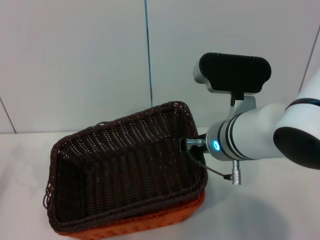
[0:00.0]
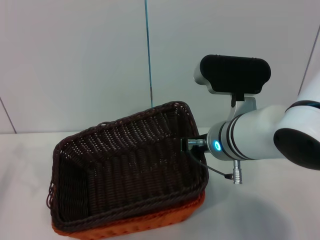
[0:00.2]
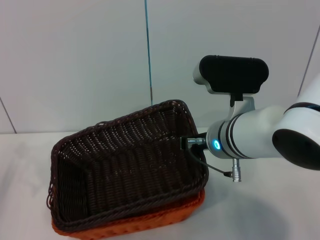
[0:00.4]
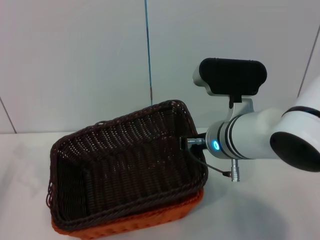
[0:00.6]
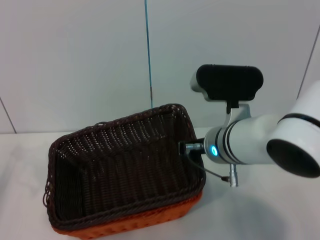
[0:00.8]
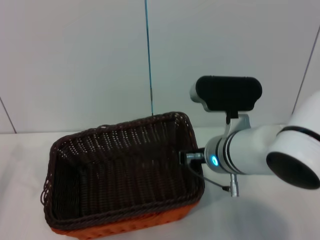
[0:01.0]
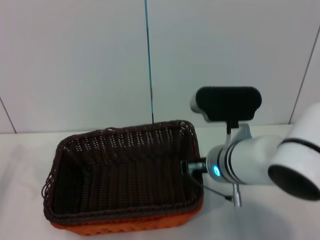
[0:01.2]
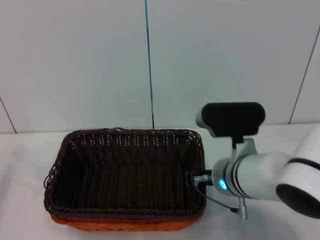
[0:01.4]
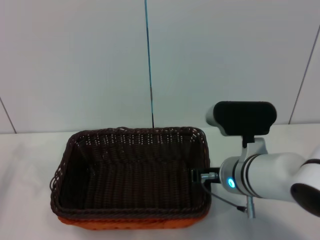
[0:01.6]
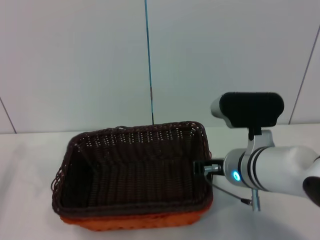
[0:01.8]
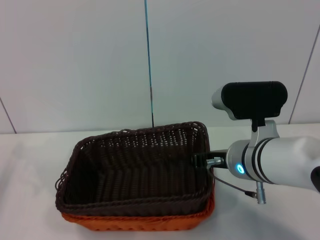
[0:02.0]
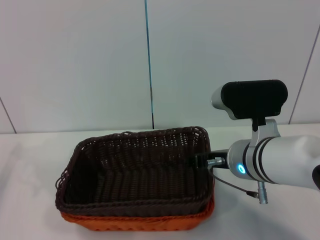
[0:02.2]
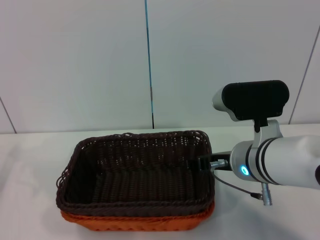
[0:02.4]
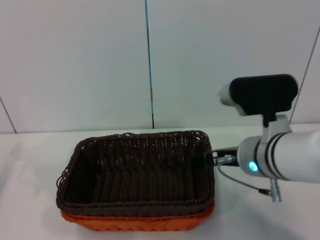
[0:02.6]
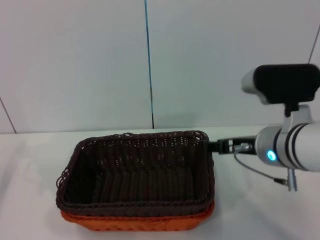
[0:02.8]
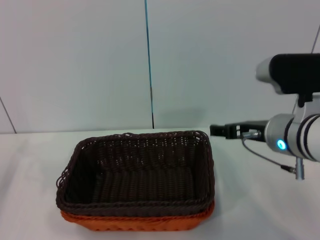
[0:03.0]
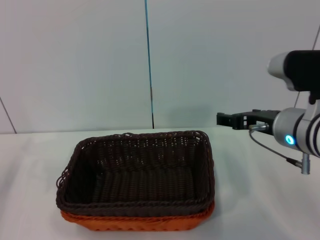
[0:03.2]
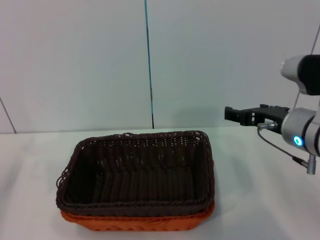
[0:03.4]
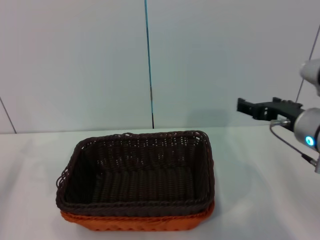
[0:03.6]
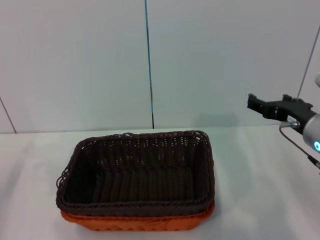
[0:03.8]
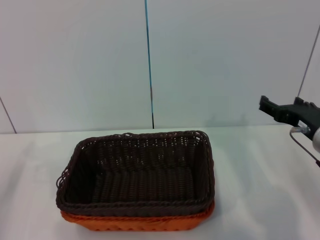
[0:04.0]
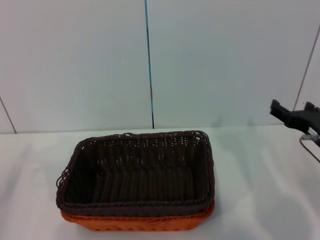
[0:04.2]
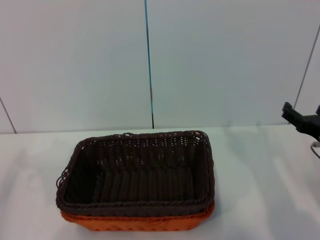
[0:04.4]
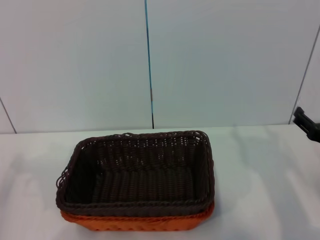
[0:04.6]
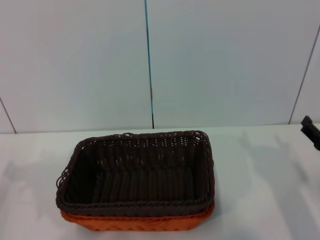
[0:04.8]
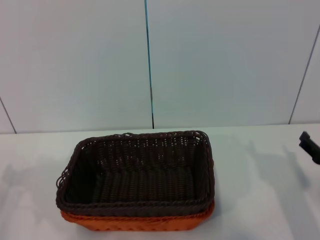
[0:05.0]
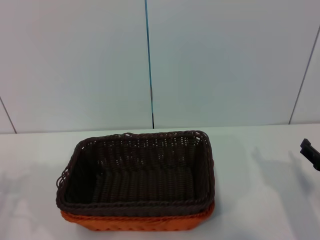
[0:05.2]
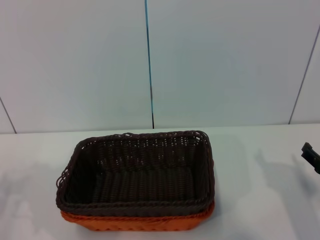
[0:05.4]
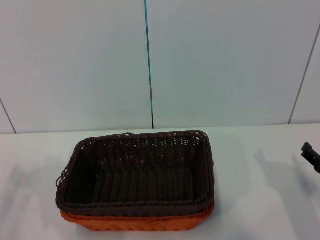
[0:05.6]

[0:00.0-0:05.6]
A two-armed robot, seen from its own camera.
Step, 0:00.0 to 0:02.2: Place the dark basket on the light basket with the right gripper.
0:00.0 to 0:01.4: The right gripper is displaced downward by approximately 5 cm.
0:01.4 to 0:02.8: The right gripper moves to the right and upward, approximately 10 cm, and opens.
0:02.8 to 0:04.2: The right gripper is displaced to the right and downward by approximately 15 cm.
0:04.2 to 0:05.6: The right gripper moves downward, about 10 cm.

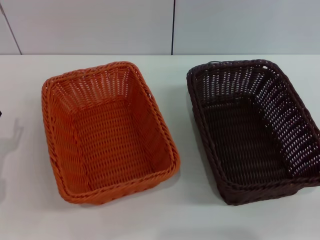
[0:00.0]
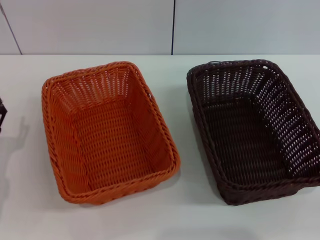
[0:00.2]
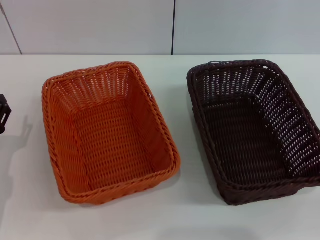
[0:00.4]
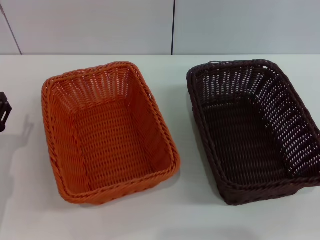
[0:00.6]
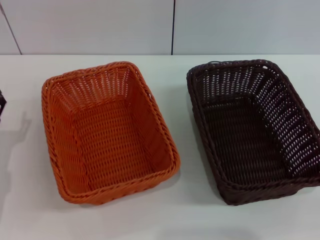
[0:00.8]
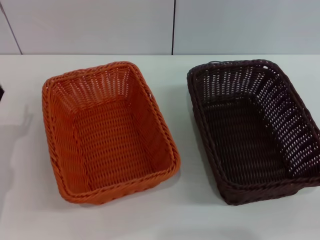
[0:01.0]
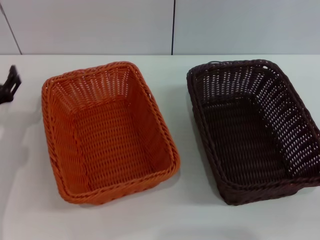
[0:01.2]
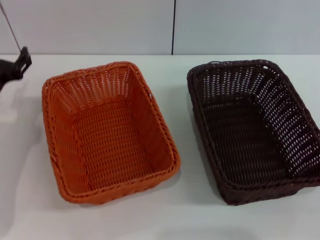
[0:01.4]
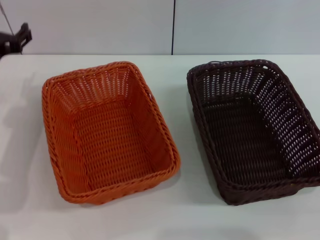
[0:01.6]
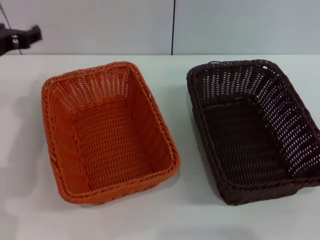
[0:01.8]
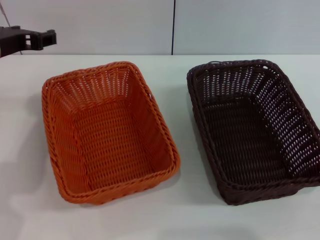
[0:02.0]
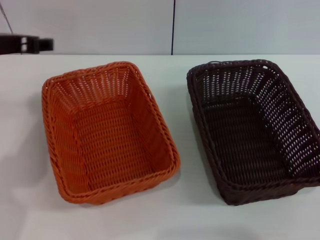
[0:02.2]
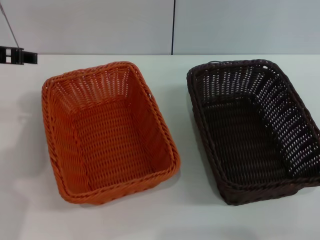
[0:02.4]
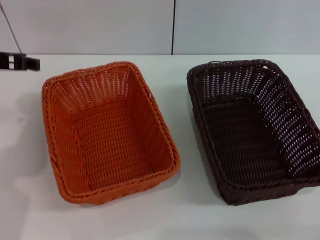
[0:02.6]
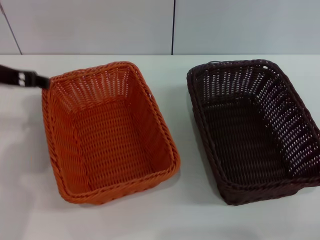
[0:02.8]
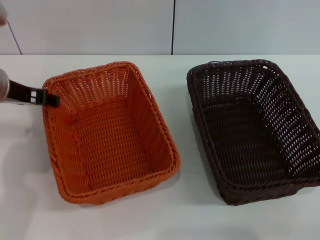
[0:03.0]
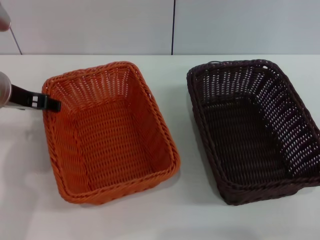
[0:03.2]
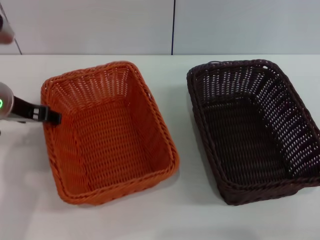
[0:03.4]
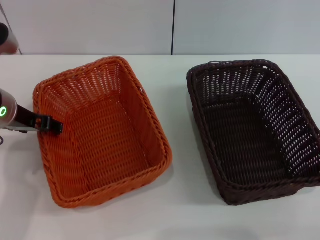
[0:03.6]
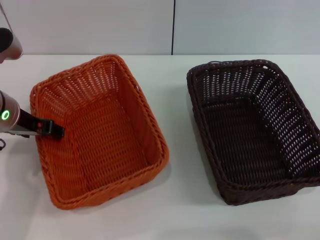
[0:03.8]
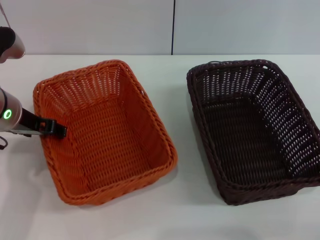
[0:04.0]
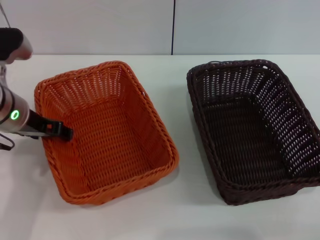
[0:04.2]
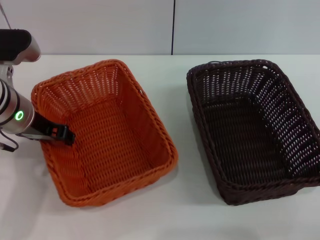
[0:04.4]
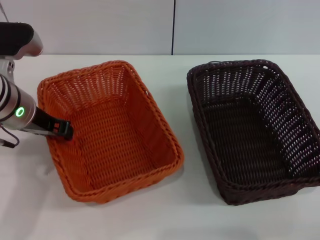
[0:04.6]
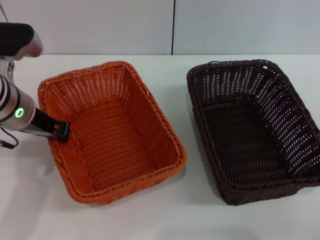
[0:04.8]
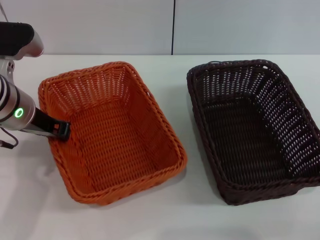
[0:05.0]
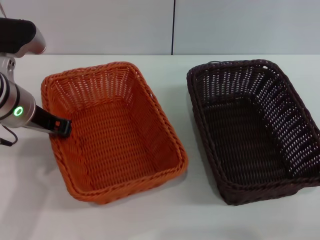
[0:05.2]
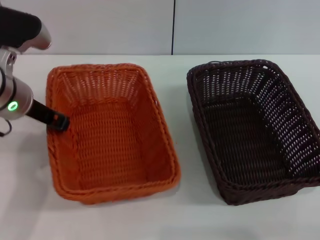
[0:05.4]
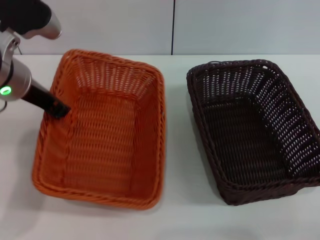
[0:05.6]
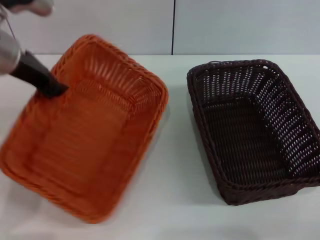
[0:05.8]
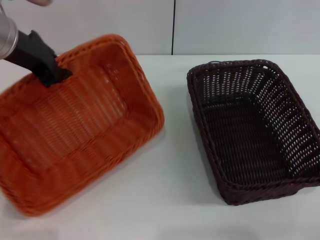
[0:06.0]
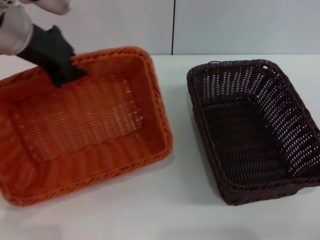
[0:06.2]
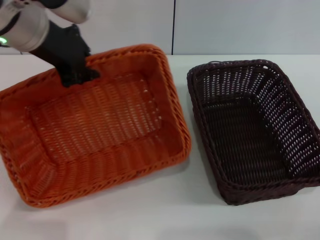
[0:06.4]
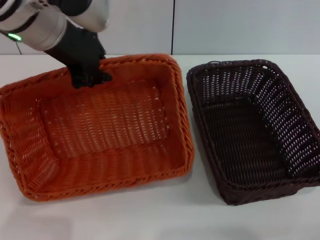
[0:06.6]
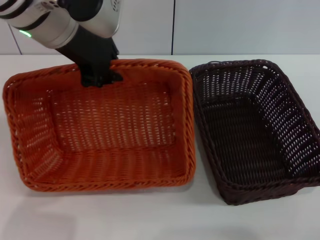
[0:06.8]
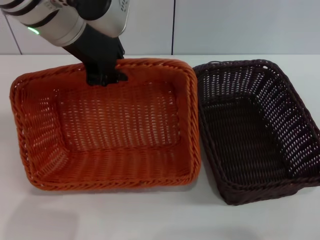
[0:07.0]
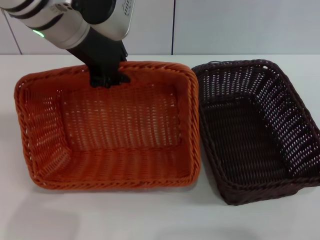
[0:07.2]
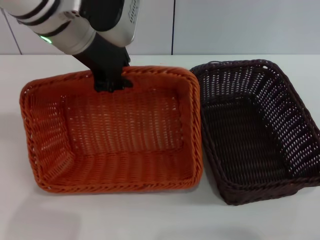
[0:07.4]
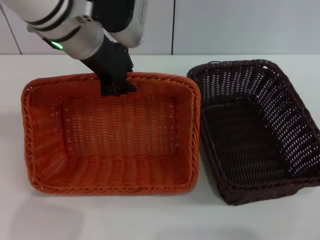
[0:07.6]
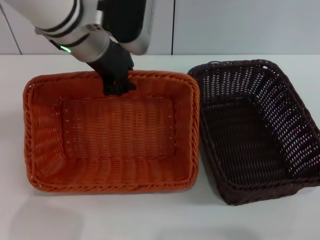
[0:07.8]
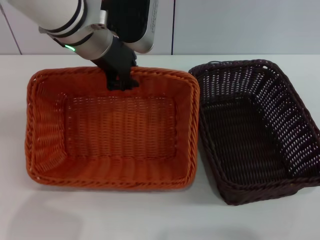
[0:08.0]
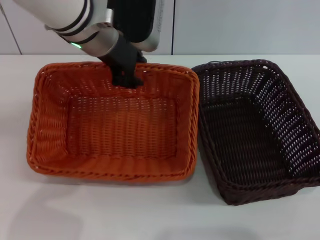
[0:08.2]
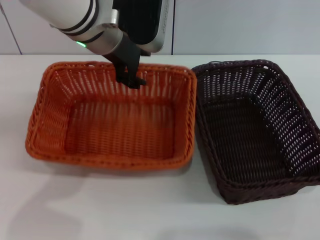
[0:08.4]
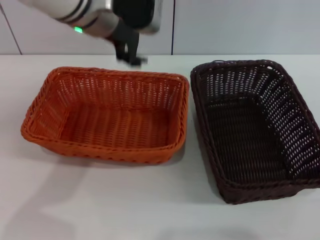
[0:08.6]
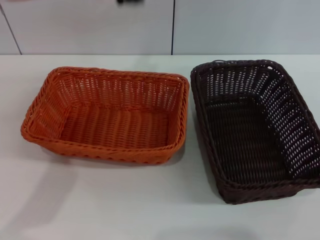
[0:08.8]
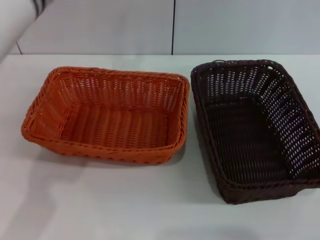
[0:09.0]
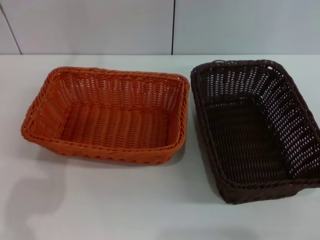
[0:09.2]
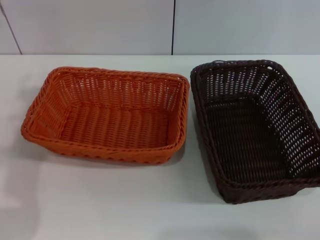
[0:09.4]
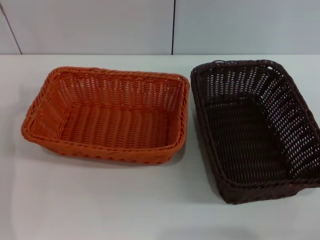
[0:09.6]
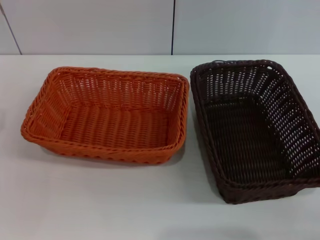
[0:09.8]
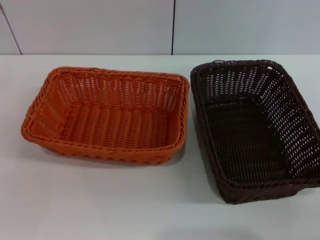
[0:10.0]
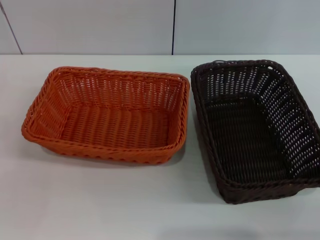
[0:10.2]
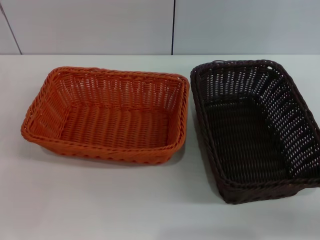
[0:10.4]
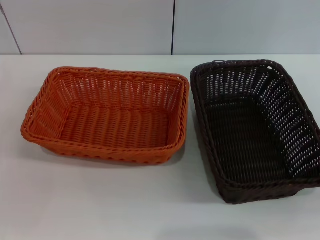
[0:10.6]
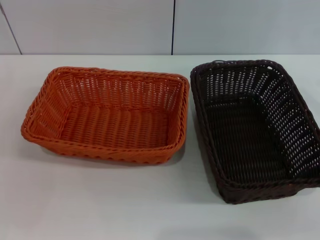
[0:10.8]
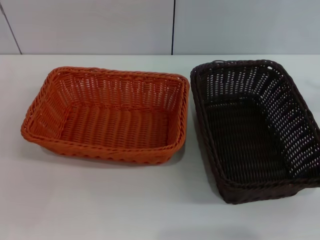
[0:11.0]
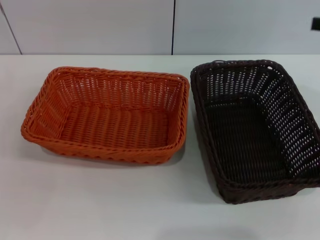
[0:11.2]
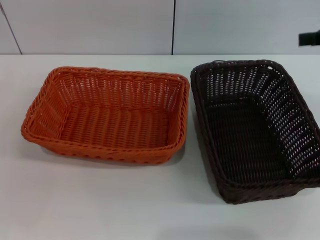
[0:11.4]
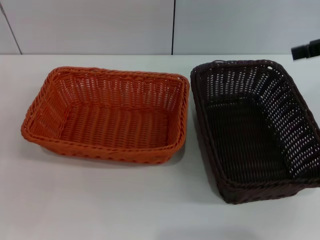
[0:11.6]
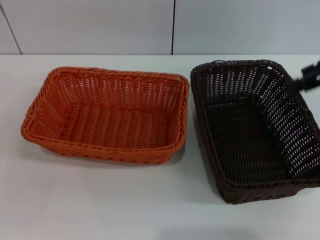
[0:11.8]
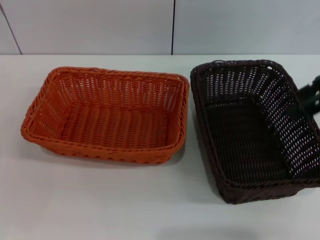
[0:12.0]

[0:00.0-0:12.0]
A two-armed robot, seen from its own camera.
Step, 0:00.0 to 0:05.6: Pick up the light basket with the left gripper.
Step, 0:05.8 to 0:08.4: Place the light basket in the center of view with the left gripper.
0:00.0 to 0:01.6: The left gripper is displaced upward and forward by some 15 cm.
0:01.6 to 0:03.0: The left gripper travels upward by approximately 5 cm.
0:03.0 to 0:04.4: The grippers move only a little.
0:04.4 to 0:06.0: The left gripper is displaced upward by roughly 10 cm, and closes up.
0:06.0 to 0:07.6: The left gripper shifts roughly 10 cm to the right.
0:07.6 to 0:09.0: The left gripper opens its fingers.
0:09.0 to 0:10.4: The right gripper heads forward, covering approximately 5 cm; the left gripper heads downward, to the left and backward, covering about 30 cm.
0:10.4 to 0:12.0: The right gripper travels upward, forward and to the left by approximately 25 cm.

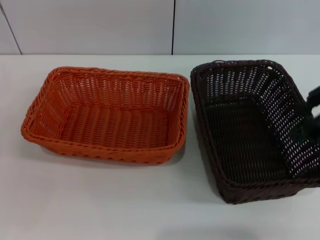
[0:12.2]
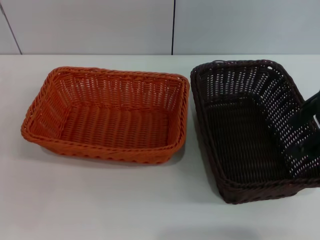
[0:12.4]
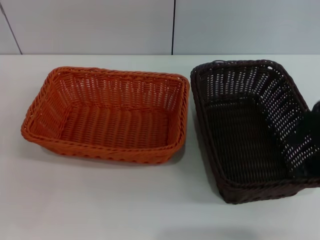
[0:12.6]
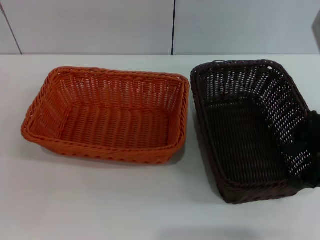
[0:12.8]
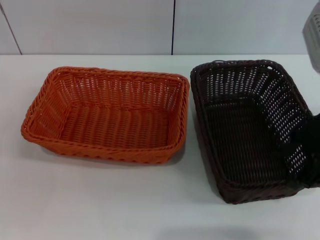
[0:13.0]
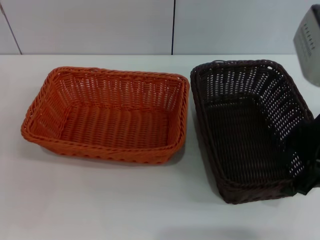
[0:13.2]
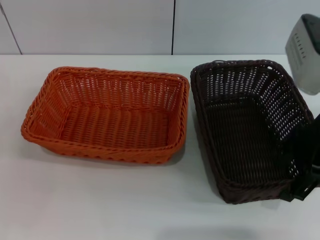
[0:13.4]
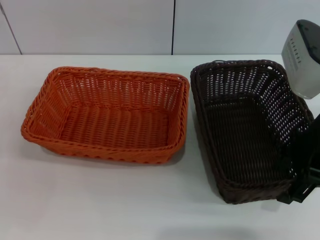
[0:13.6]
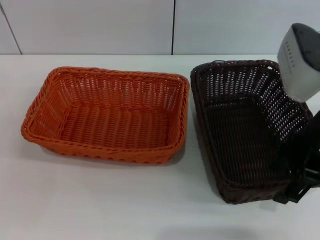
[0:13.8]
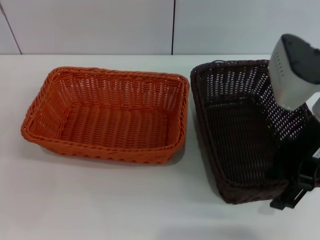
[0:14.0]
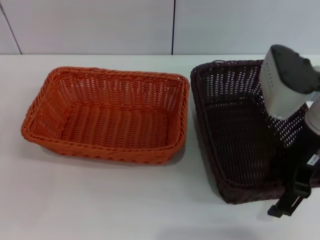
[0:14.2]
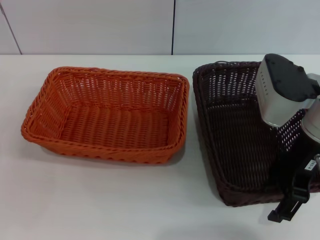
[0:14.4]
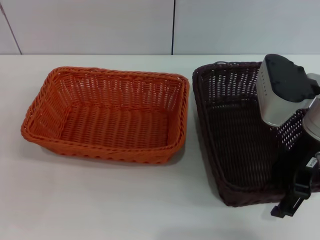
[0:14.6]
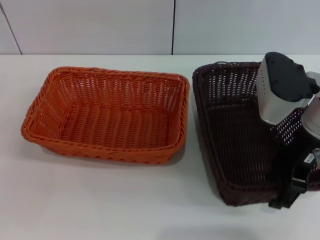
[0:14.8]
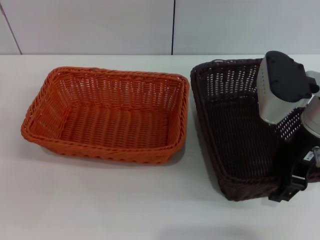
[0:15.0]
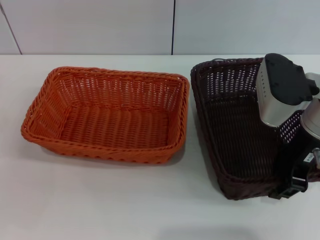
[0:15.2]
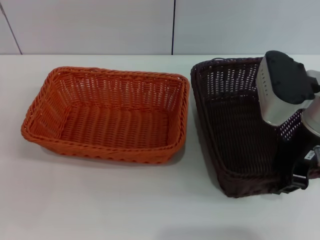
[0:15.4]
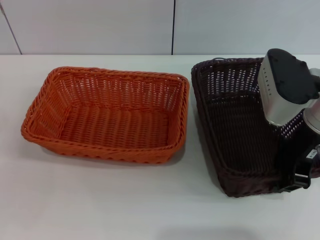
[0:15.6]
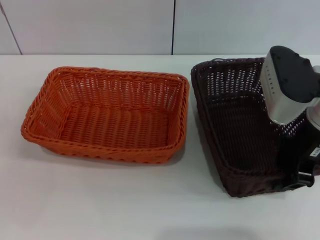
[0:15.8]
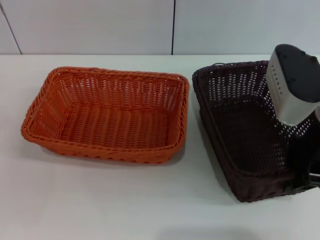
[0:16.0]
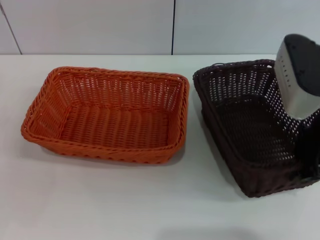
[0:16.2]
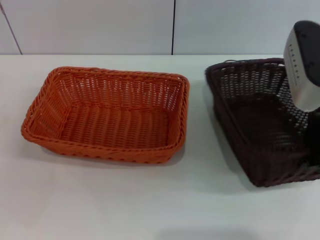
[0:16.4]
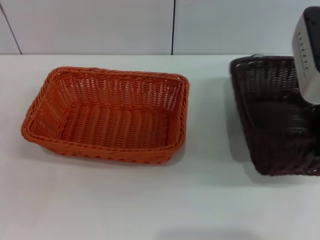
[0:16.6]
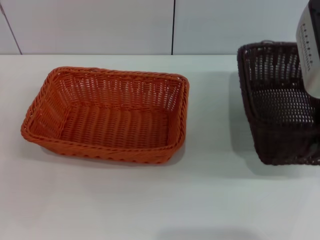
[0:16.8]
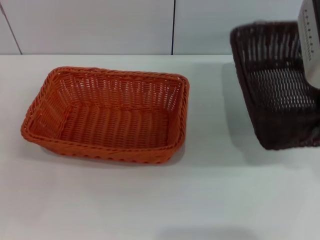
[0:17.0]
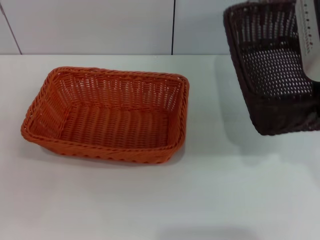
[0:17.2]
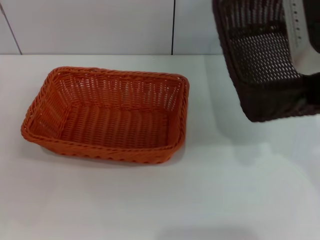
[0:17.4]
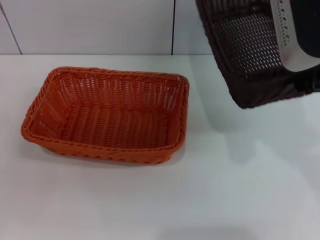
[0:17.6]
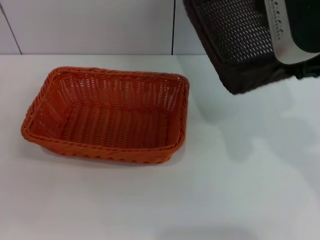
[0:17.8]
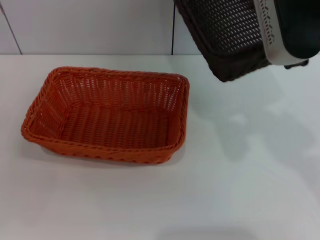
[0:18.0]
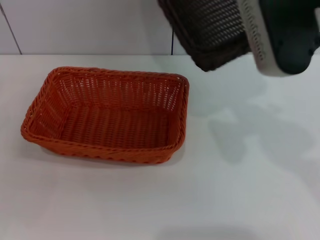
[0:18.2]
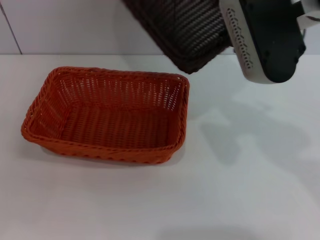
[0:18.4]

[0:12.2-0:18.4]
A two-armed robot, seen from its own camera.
Step, 0:12.2 to 0:16.6: Pick up the dark basket with the right gripper.
0:12.2 to 0:13.8: The right gripper shifts about 10 cm downward and to the left.
0:13.8 to 0:15.4: The right gripper closes up.
0:15.4 to 0:16.8: The right gripper goes roughly 10 cm upward.
0:16.8 to 0:18.4: The right gripper heads to the left, covering some 10 cm.
